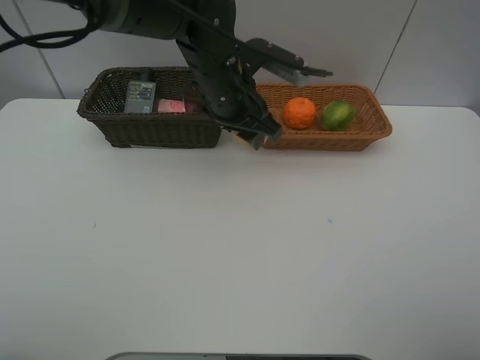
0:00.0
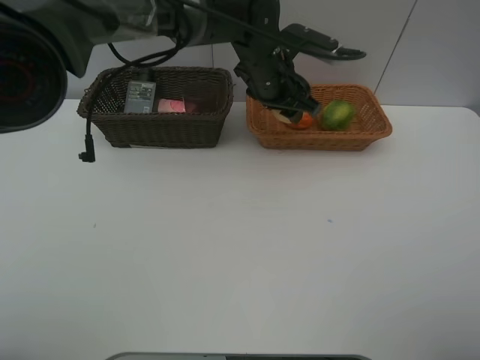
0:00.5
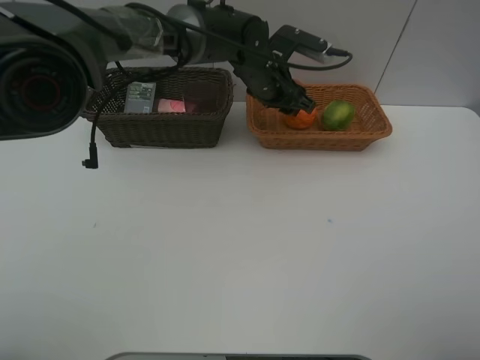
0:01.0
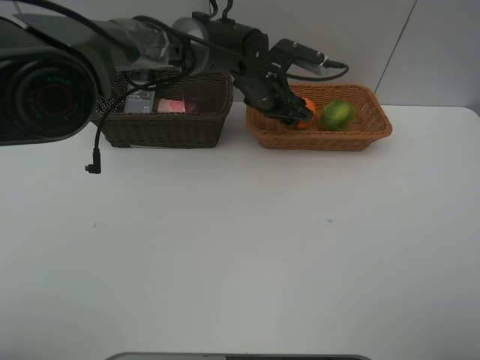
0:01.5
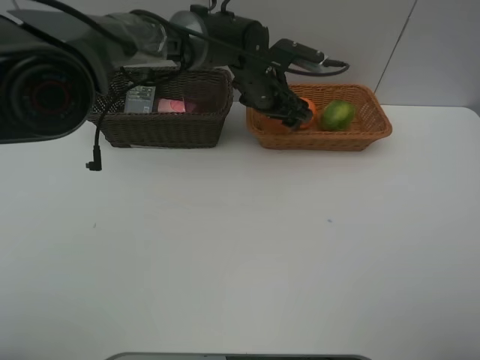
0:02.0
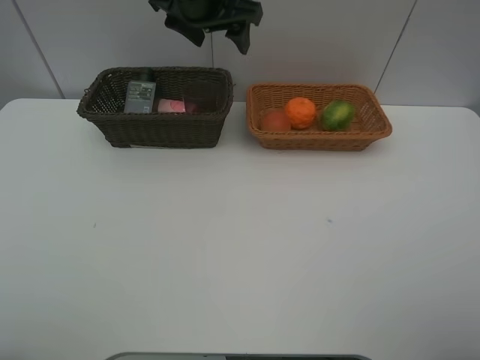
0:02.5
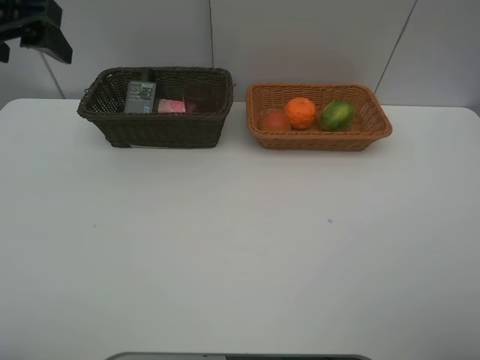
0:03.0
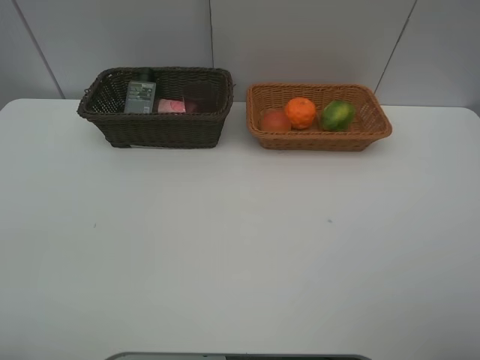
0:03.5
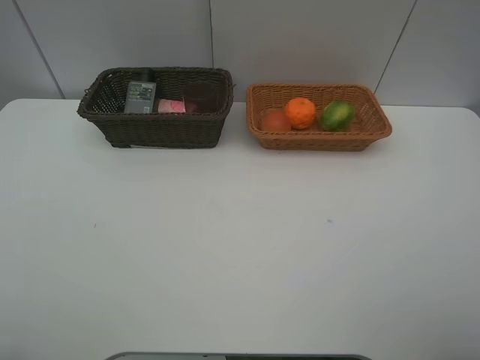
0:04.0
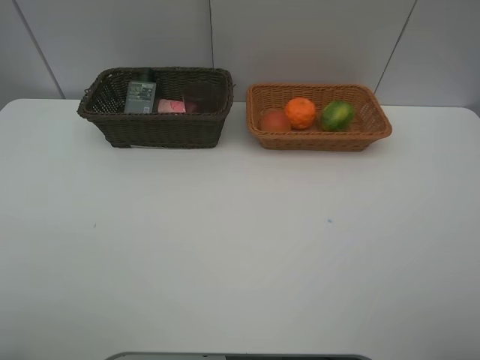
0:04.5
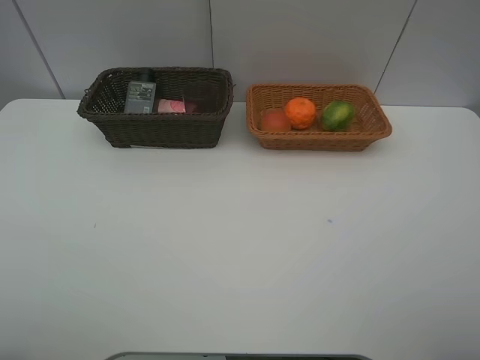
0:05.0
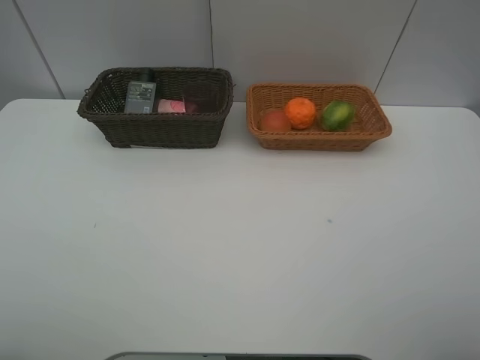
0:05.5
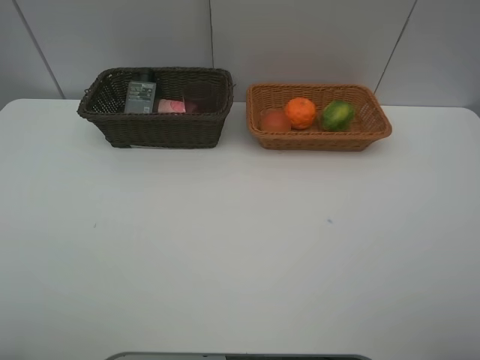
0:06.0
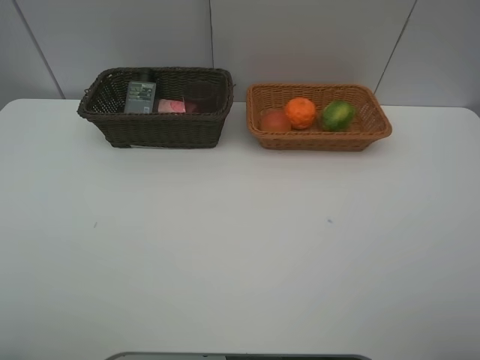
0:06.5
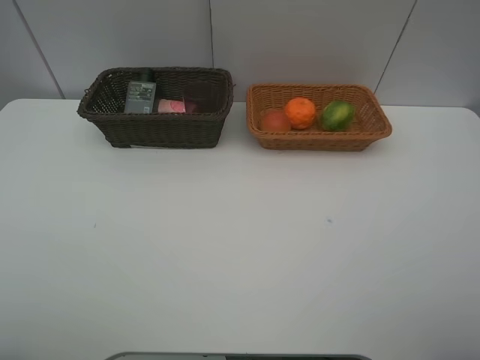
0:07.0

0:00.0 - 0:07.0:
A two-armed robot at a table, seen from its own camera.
Task of the whole recording: place multiple objects separately in different baskets.
0:00.0 - 0:02.0: The left gripper shifts about 10 cm forward.
0:02.0 - 0:03.5: The left gripper travels to the left, backward and upward by approximately 50 cm.
0:05.0 - 0:07.0: Neither gripper changes place.
